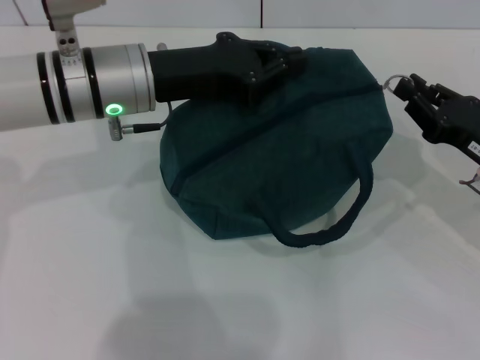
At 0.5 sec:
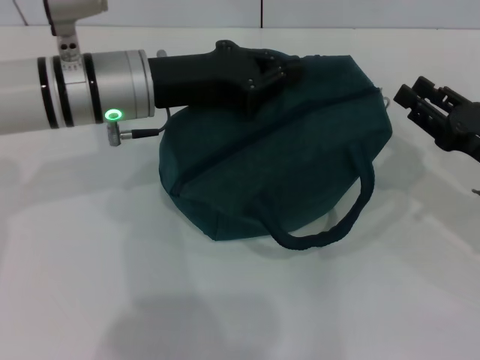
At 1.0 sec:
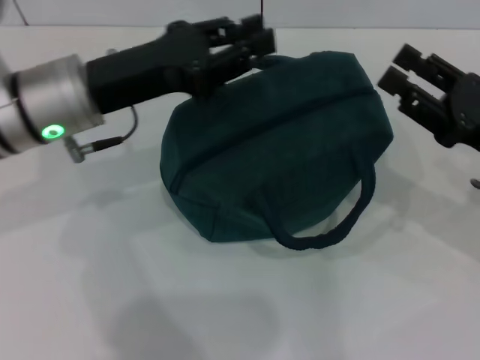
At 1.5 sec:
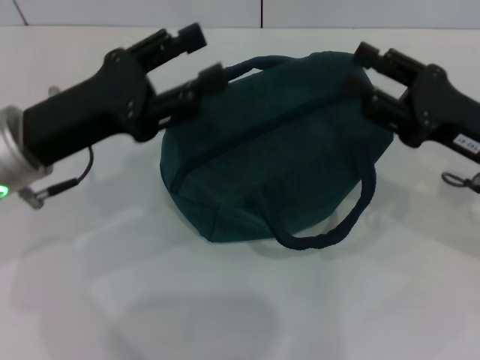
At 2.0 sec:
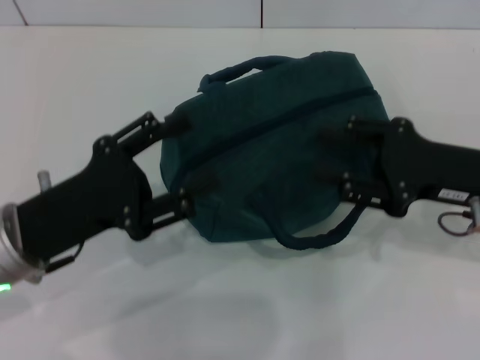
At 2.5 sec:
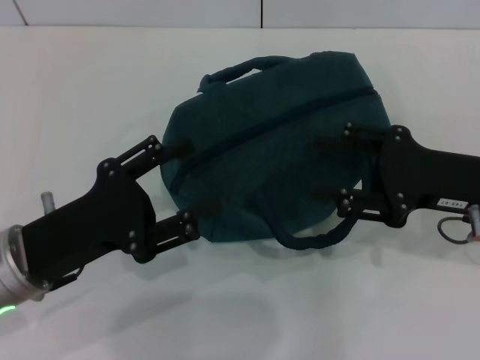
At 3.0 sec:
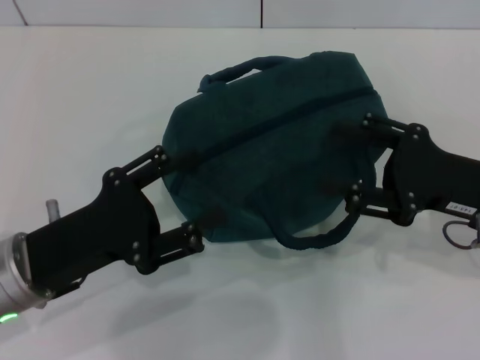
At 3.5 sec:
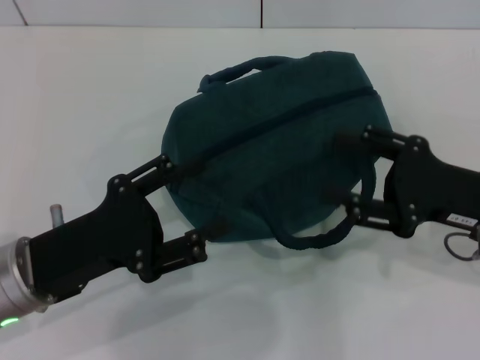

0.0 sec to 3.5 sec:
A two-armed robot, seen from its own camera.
0.0 sec to 2.0 sec: The right gripper goes approximately 5 cm upward, and opens up. The left gripper heads backward, to the left and downward, covering some 15 cm, and opens up.
2.0 sec to 3.5 sec: The grippers make only small movements.
